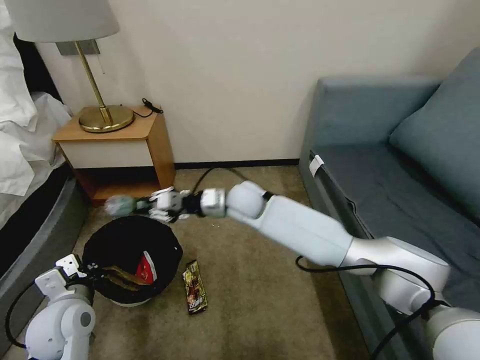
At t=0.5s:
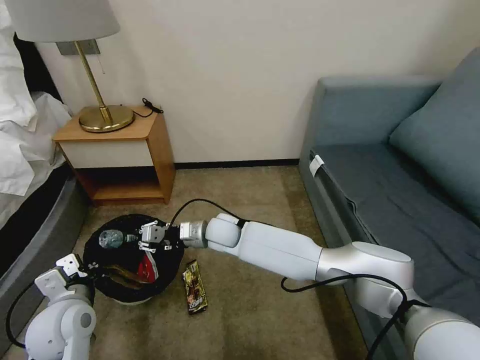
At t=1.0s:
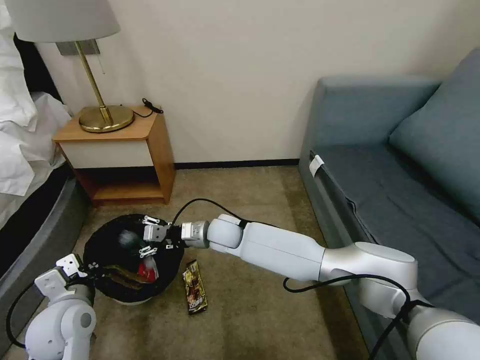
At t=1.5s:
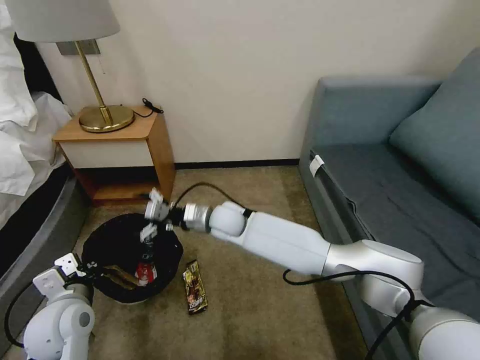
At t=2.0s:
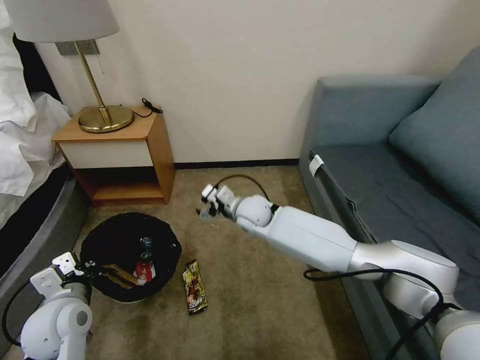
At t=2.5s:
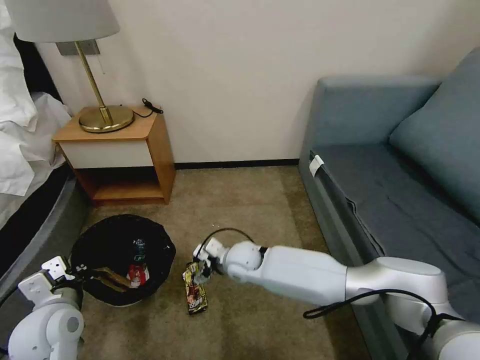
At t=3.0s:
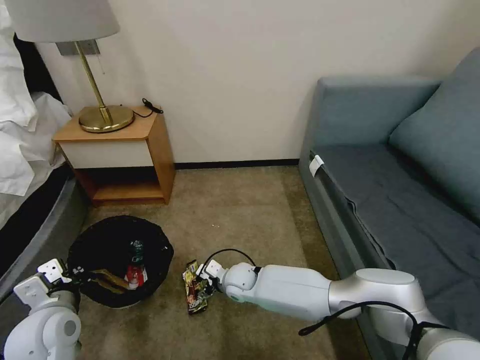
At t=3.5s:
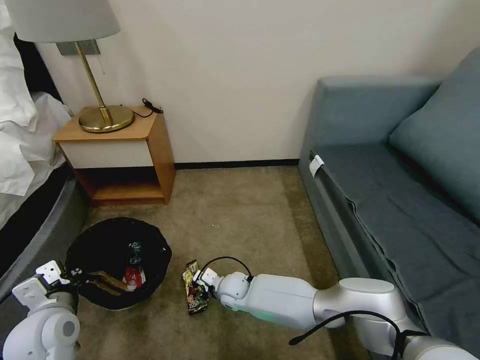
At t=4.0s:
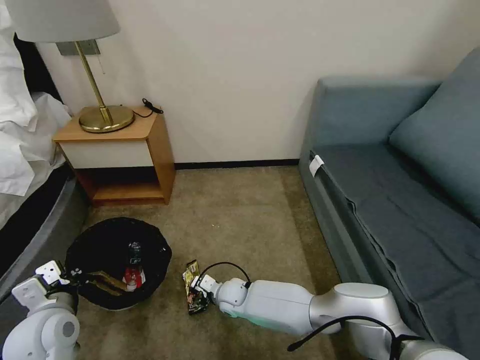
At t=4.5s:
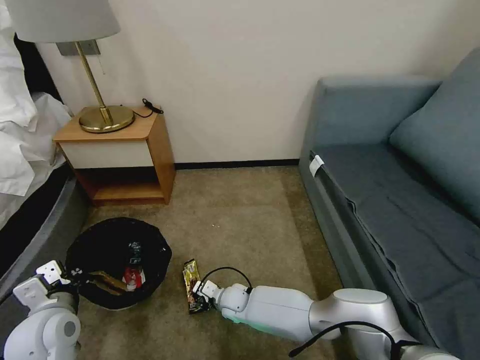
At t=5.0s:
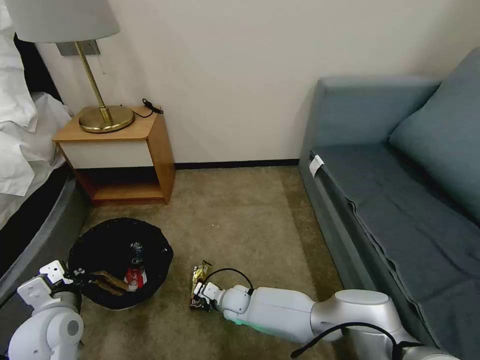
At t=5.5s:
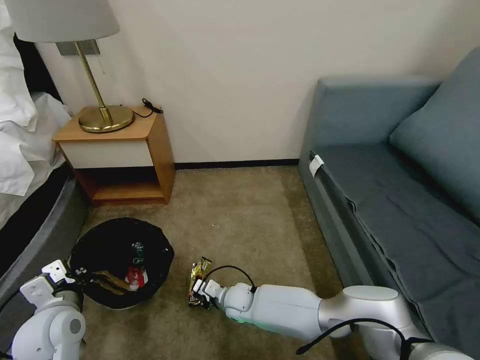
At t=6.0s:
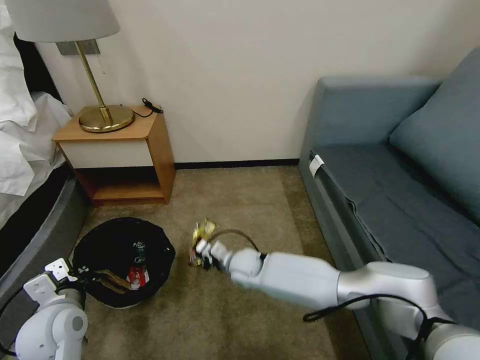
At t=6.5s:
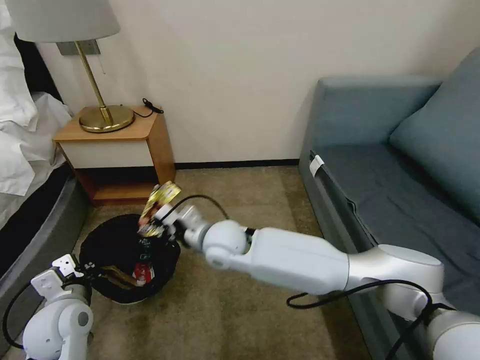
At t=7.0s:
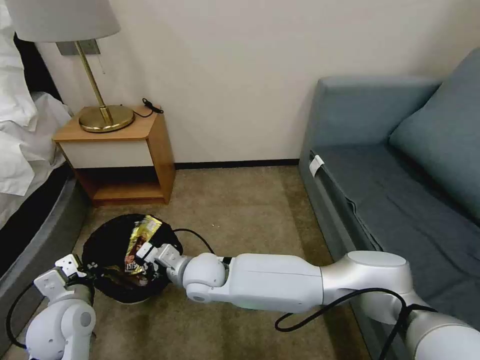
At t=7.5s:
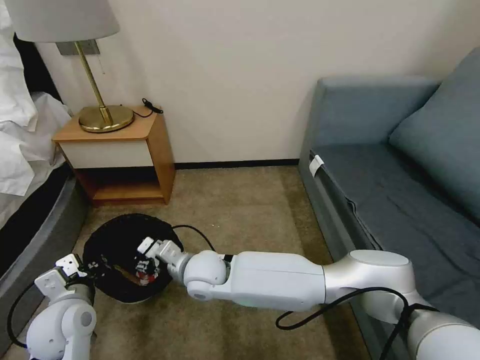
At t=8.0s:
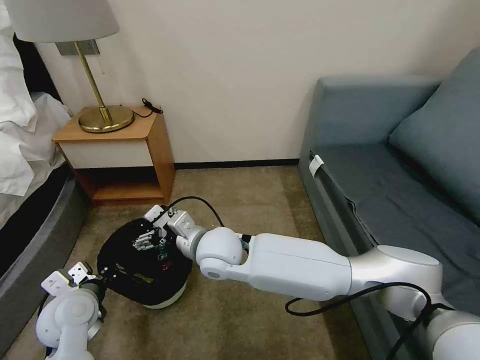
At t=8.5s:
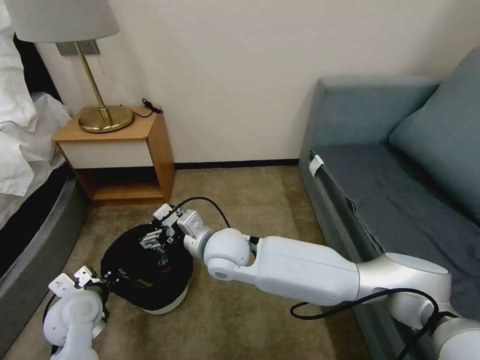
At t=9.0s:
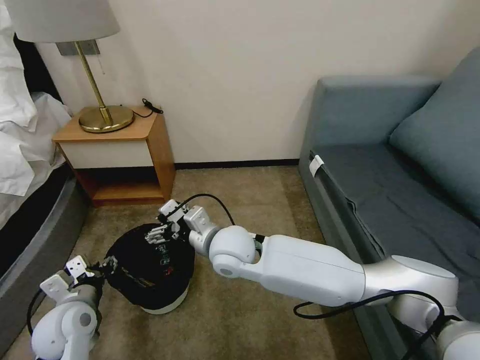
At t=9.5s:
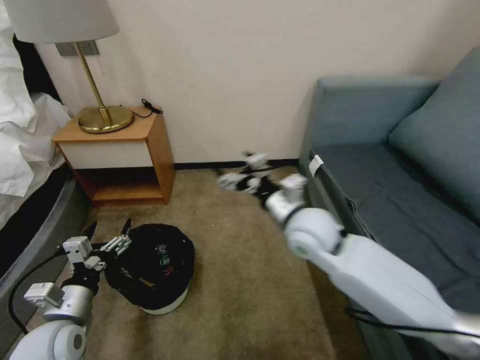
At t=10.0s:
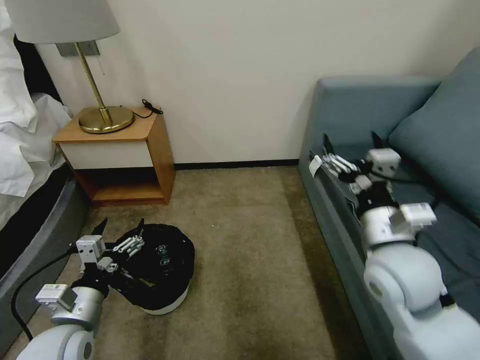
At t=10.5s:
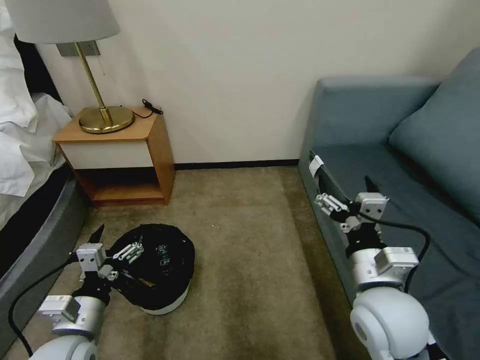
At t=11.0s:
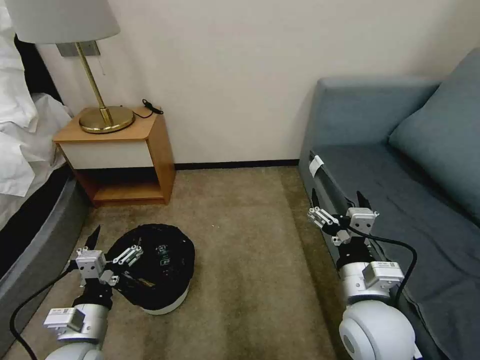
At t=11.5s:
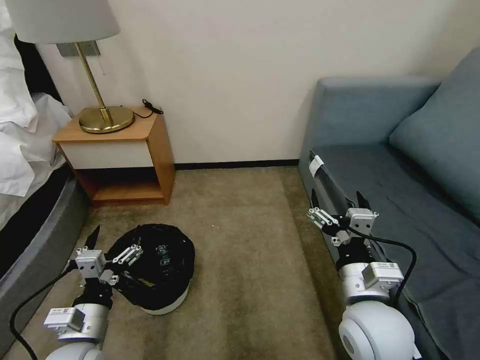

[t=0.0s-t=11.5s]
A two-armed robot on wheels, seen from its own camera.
Task of the whole recording: Pick up the trash bin, then pick up the garbage on the floor and place it into the trash bin.
t=0.0s to t=2.0s: The right gripper heads downward, covering some 5 cm, and opens up.
t=2.0s to t=4.0s: The right gripper moves downward and backward, roughly 25 cm.
t=4.0s to t=6.0s: The right gripper shifts about 10 cm upward and forward, and closes up.
t=6.0s to t=7.5s: The right gripper shifts approximately 15 cm upward, to the left and backward, and opens.
t=7.5s to t=9.5s: The left gripper opens its fingers. Meanwhile the right gripper moves to the right and upward, approximately 25 cm, and opens.
t=9.5s to t=11.5s: The left gripper moves to the right, approximately 5 cm, while the right gripper travels backward and to the right by some 20 cm.

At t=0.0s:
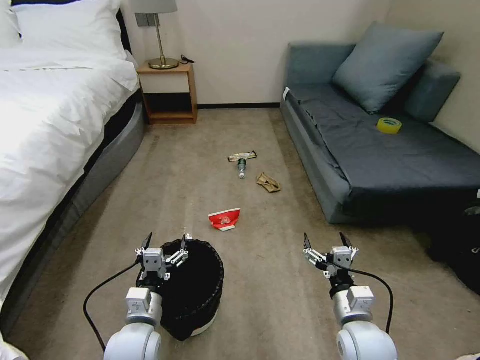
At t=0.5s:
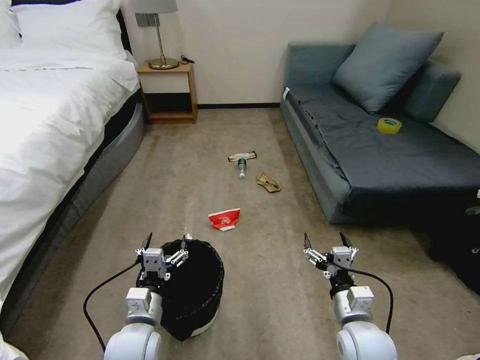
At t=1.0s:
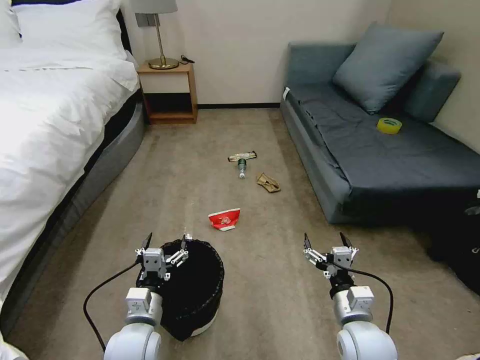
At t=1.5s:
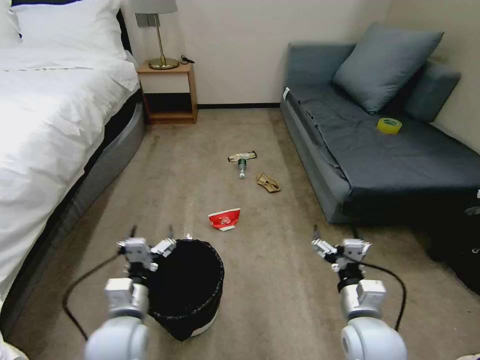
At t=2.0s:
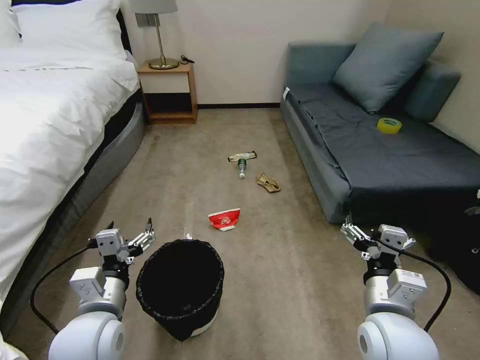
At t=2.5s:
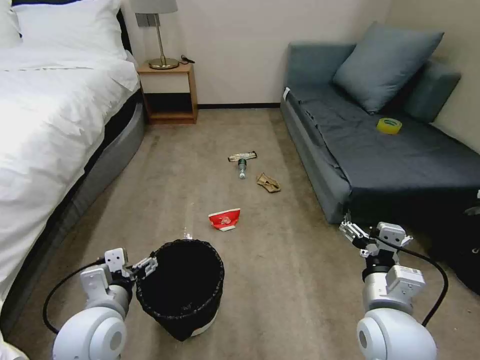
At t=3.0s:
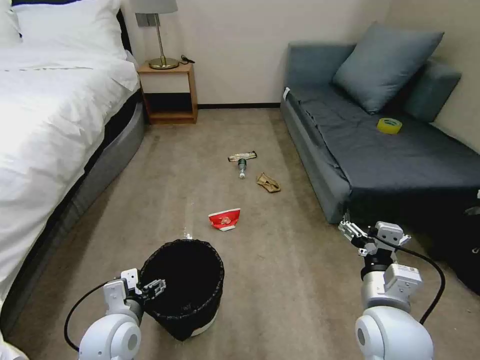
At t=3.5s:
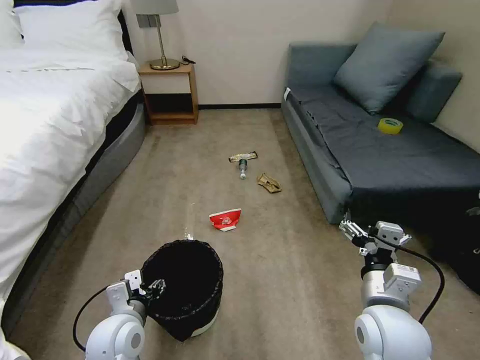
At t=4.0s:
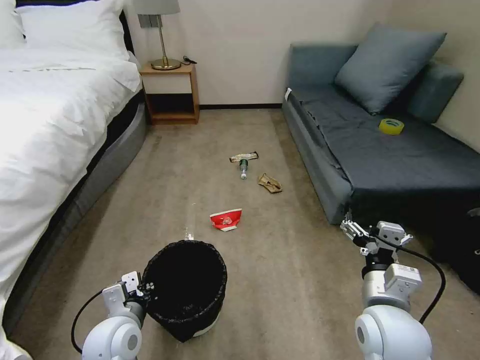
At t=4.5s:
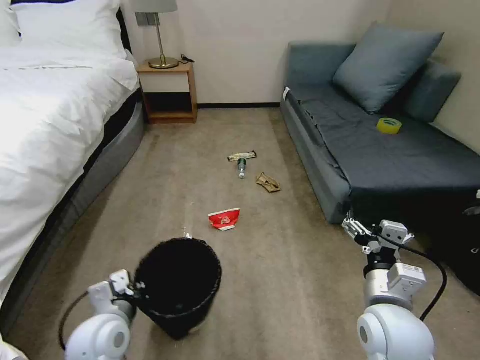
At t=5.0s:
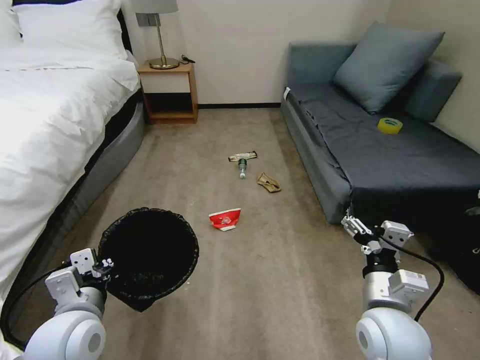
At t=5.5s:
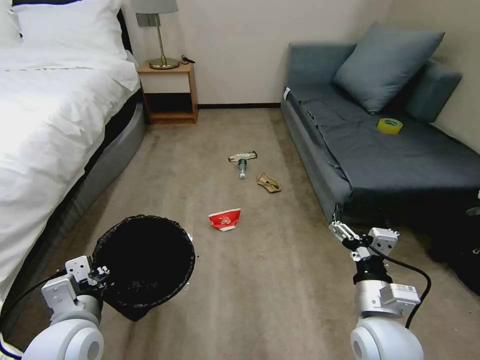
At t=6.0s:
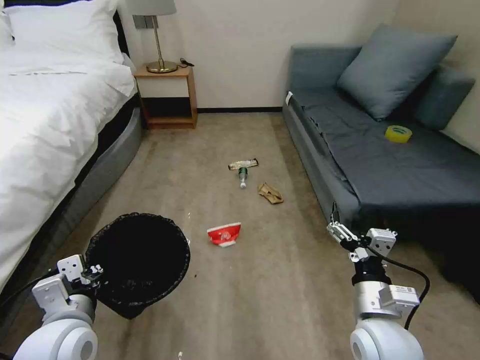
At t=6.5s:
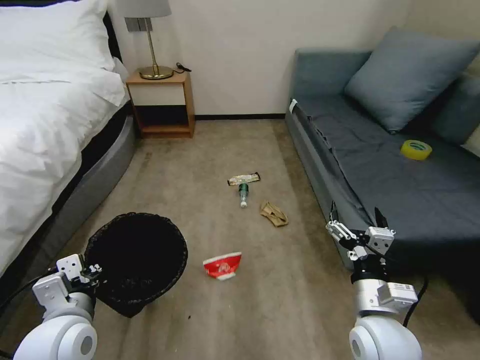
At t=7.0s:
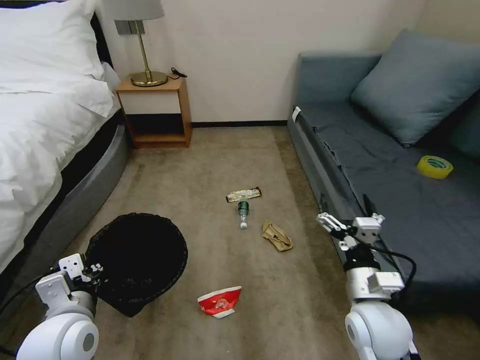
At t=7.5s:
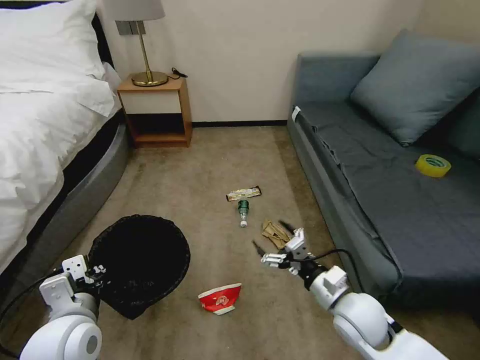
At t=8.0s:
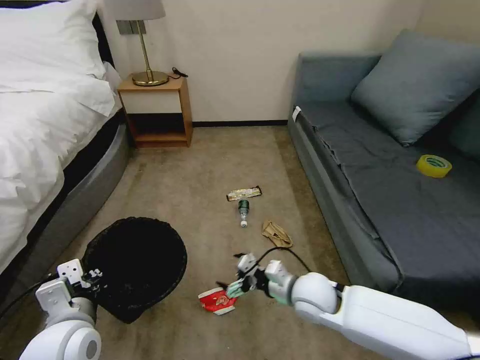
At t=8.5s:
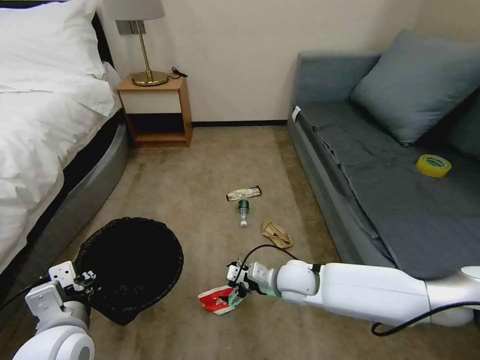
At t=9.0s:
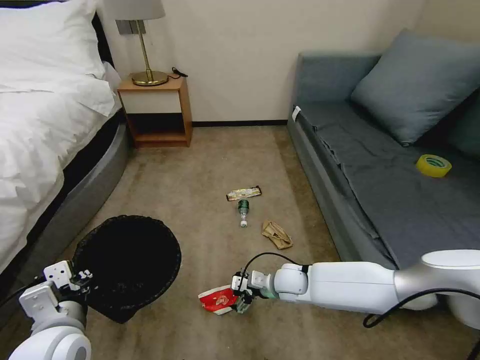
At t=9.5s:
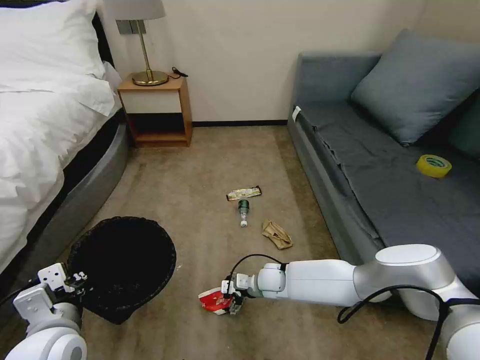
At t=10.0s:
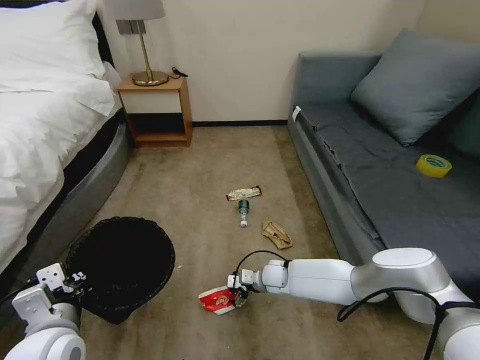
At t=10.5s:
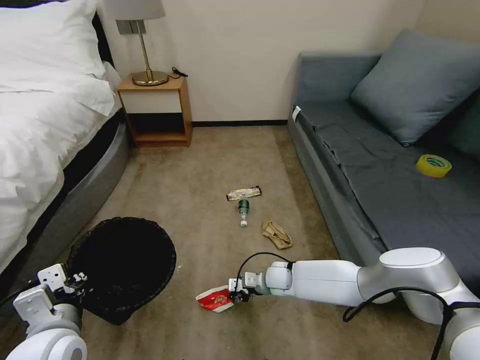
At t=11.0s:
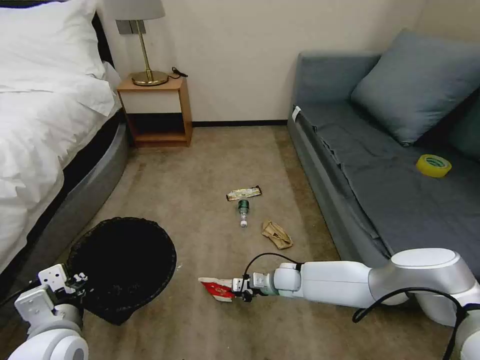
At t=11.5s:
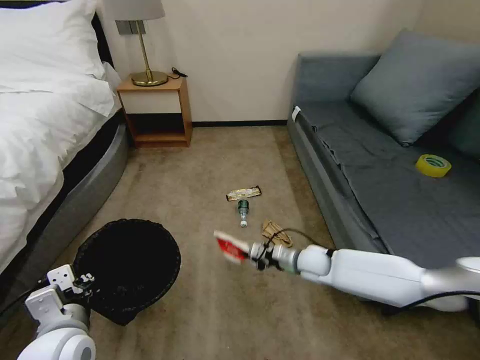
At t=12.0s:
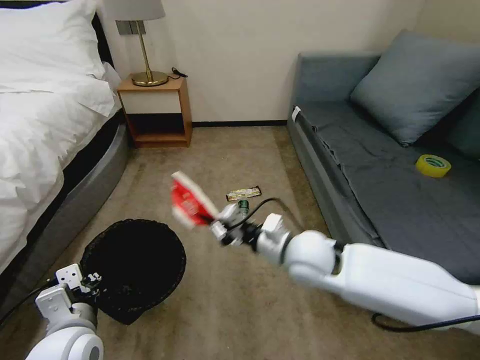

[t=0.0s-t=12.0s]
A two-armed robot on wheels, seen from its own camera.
Task of the whole recording: Pick up the trash bin, then pick up the garbage on the floor and place it into the trash bin.
t=2.0s to t=4.0s: The left gripper moves downward, some 10 cm, and closes its fingers.
t=4.0s to t=6.0s: The left gripper moves upward, roughly 10 cm.
t=6.0s to t=8.0s: The right gripper travels forward, to the left and downward by approximately 15 cm.
t=8.0s to t=10.0s: The right gripper shifts about 20 cm downward and forward.
t=10.0s to t=12.0s: The right gripper is displaced upward by roughly 25 cm, and closes its fingers.

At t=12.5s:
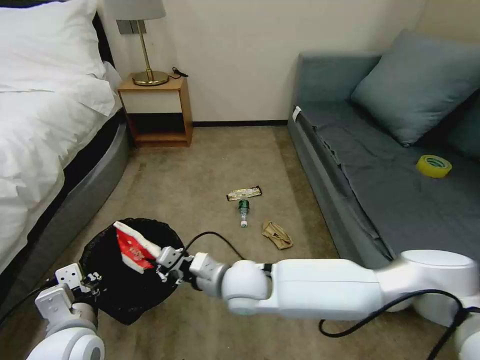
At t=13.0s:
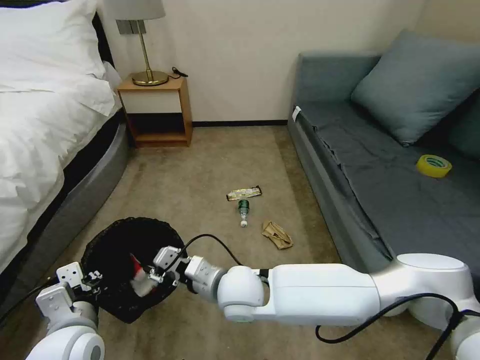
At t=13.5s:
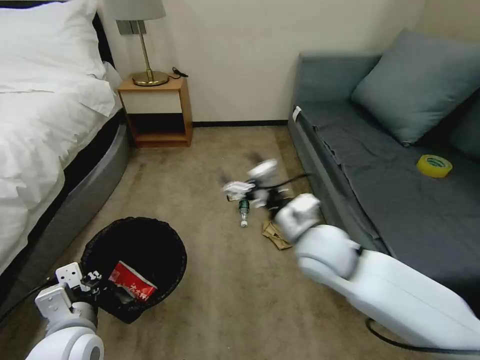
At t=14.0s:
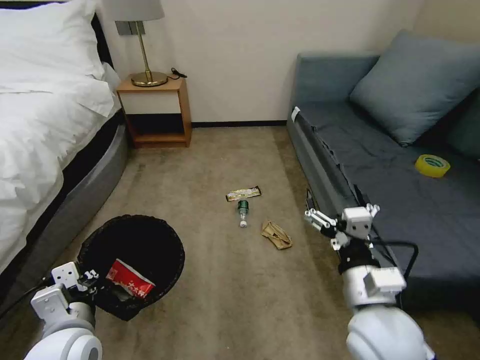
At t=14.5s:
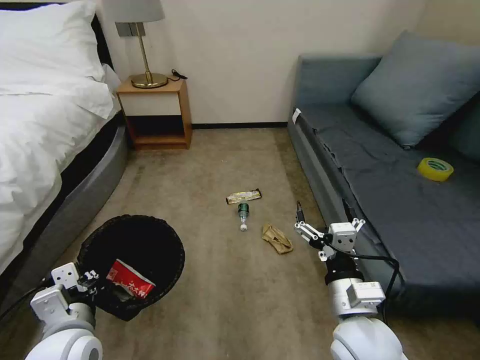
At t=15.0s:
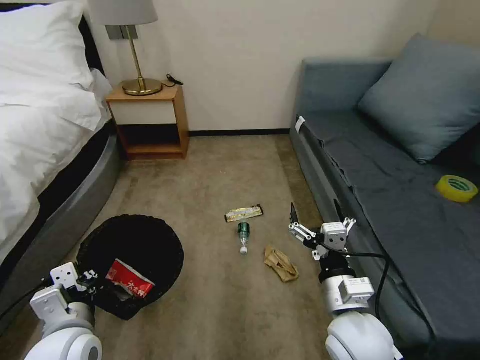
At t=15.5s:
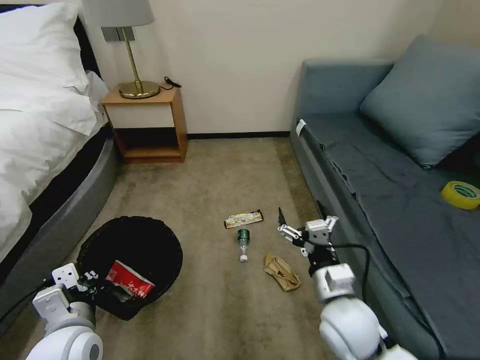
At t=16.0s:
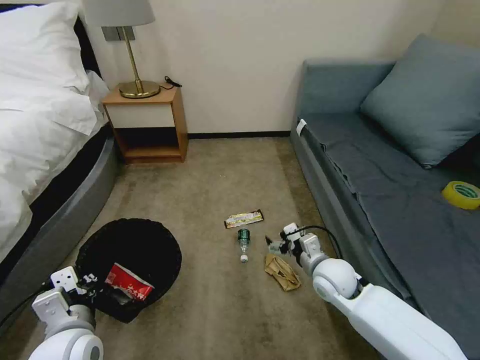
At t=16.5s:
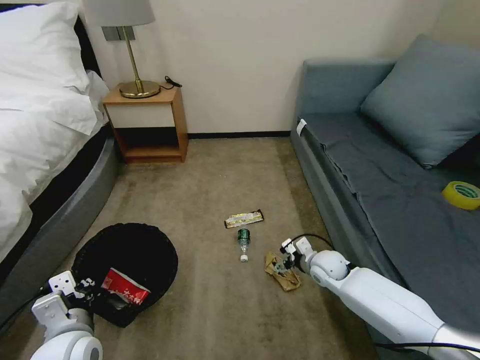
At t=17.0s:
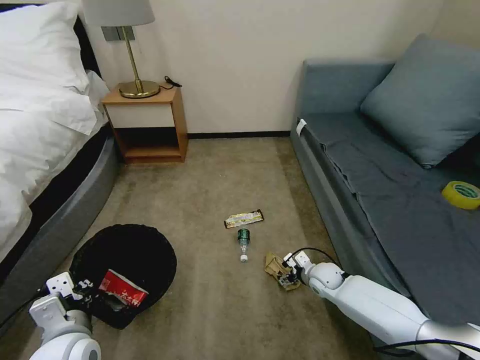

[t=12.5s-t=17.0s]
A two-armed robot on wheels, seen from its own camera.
Task of the whole recording: Pick up the trash bin, then pick up the garbage on the floor and place it into the trash bin.
t=12.5s to t=14.5s: The right gripper travels to the right and backward by some 20 cm, and opens its fingers.
t=14.5s to t=17.0s: The right gripper goes some 30 cm downward and forward.
